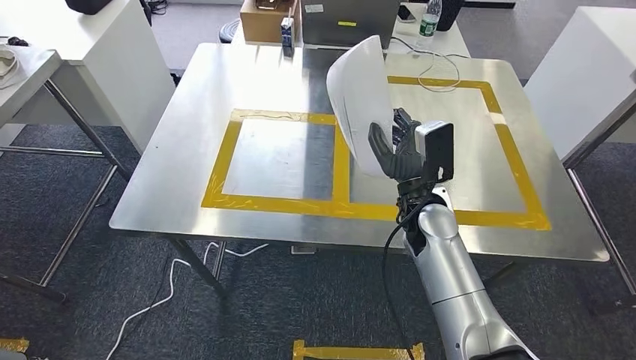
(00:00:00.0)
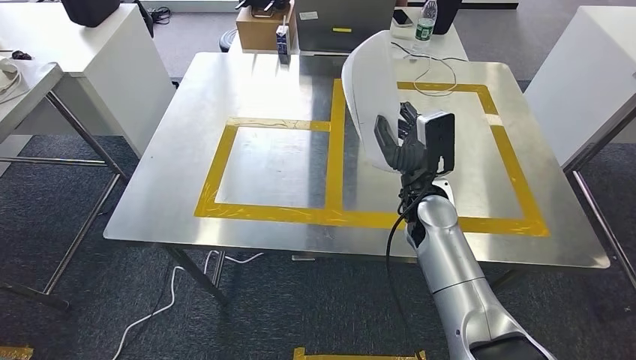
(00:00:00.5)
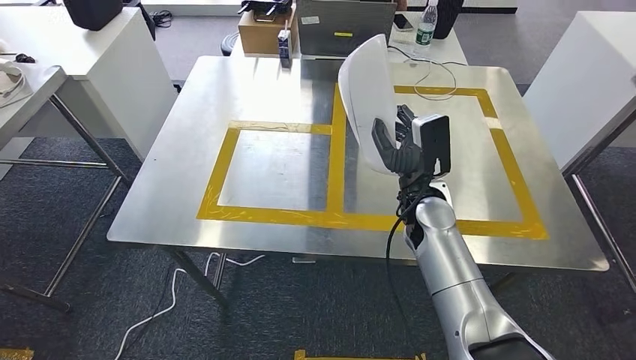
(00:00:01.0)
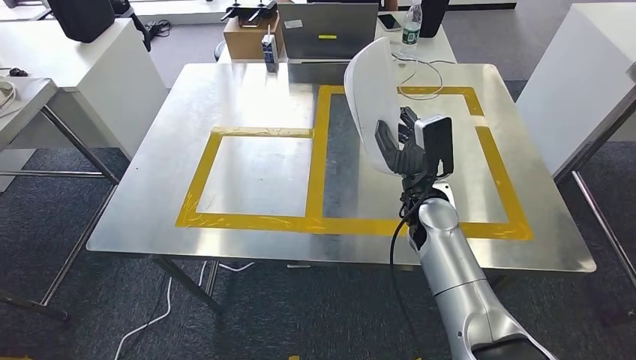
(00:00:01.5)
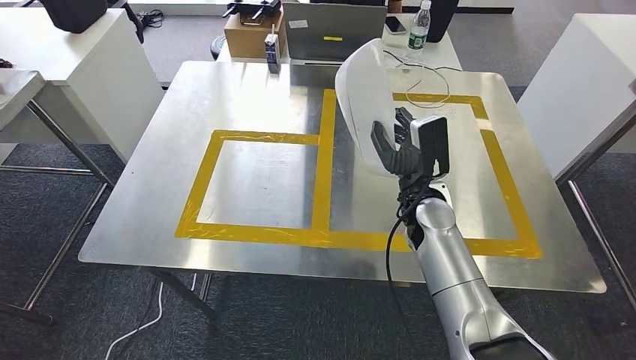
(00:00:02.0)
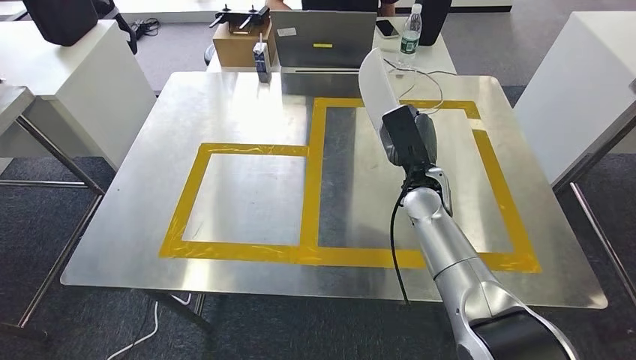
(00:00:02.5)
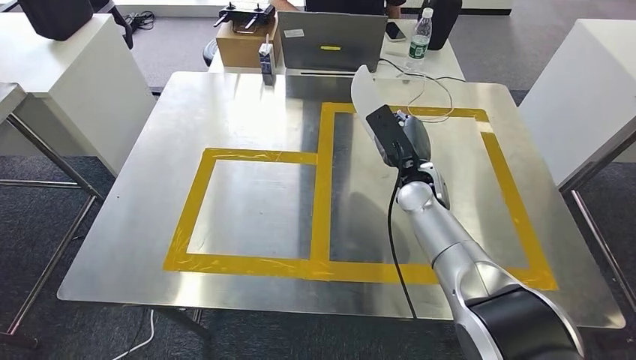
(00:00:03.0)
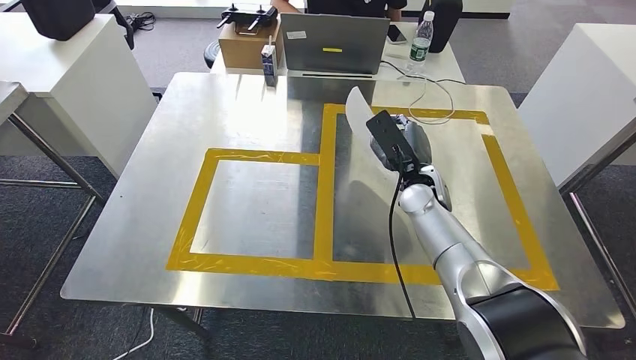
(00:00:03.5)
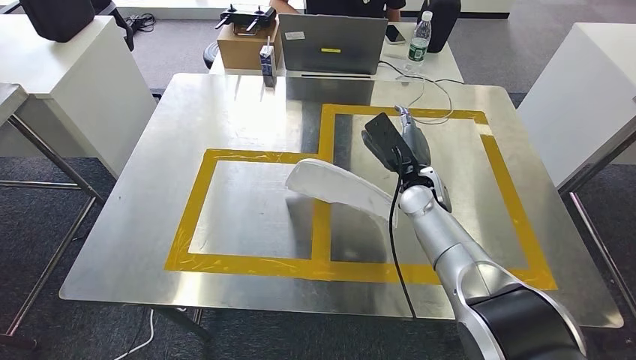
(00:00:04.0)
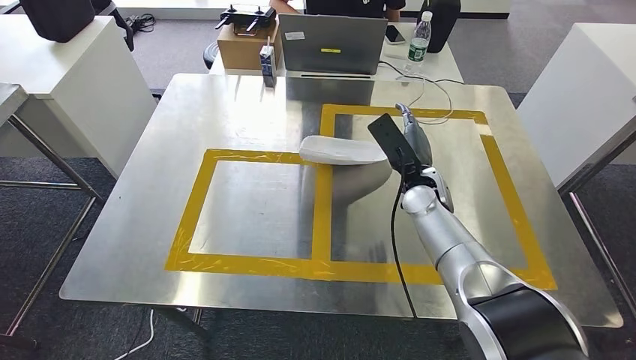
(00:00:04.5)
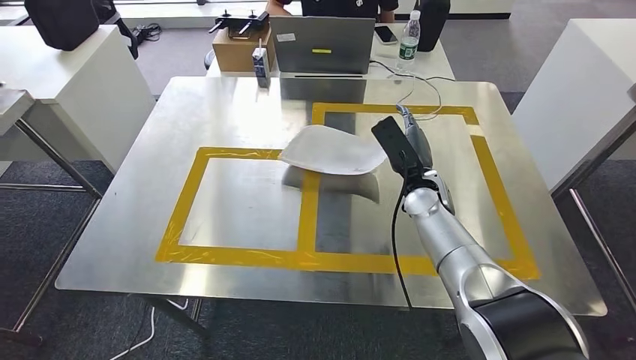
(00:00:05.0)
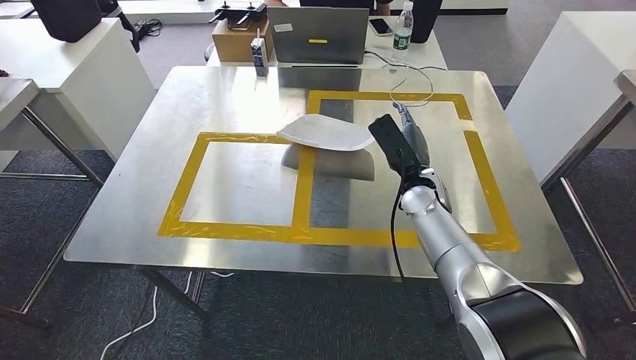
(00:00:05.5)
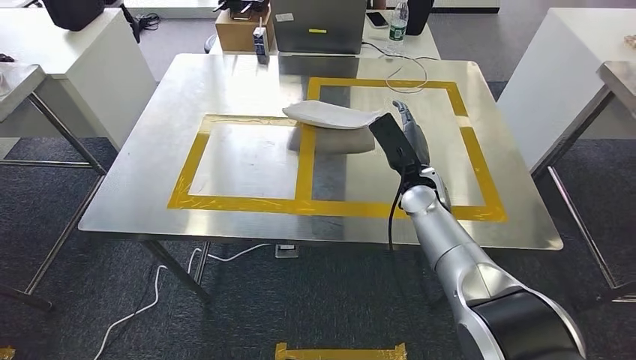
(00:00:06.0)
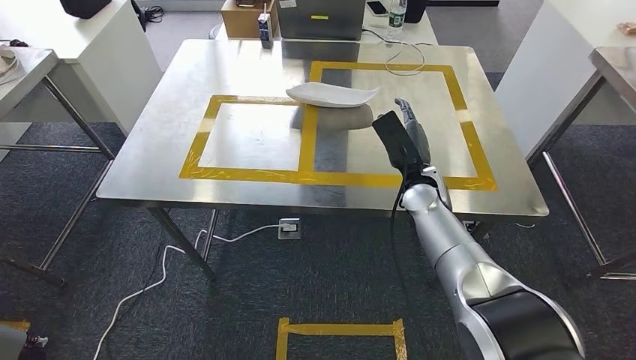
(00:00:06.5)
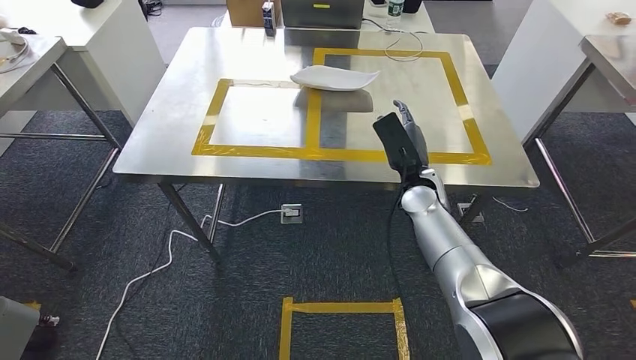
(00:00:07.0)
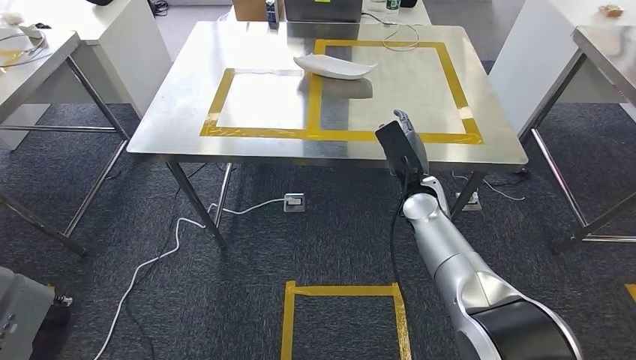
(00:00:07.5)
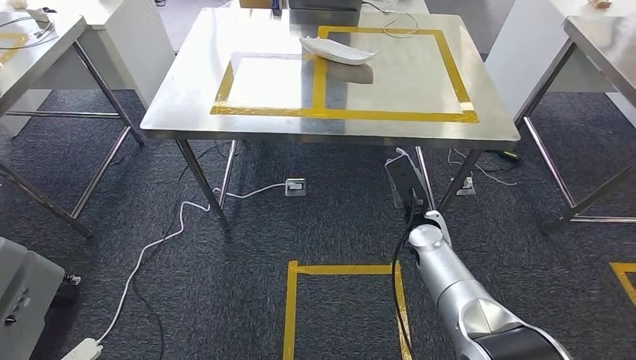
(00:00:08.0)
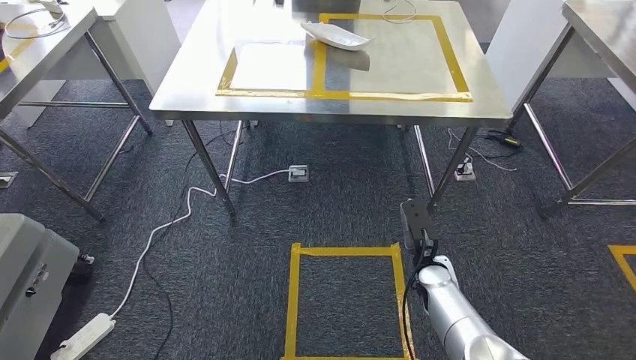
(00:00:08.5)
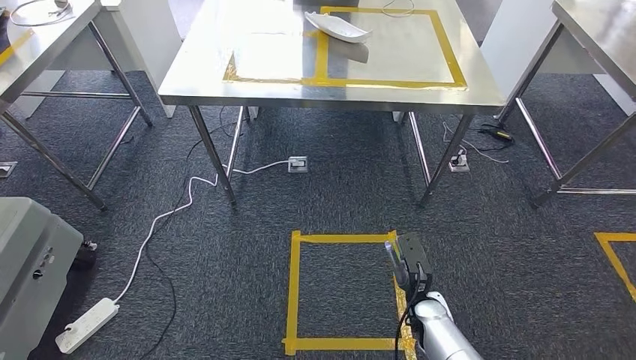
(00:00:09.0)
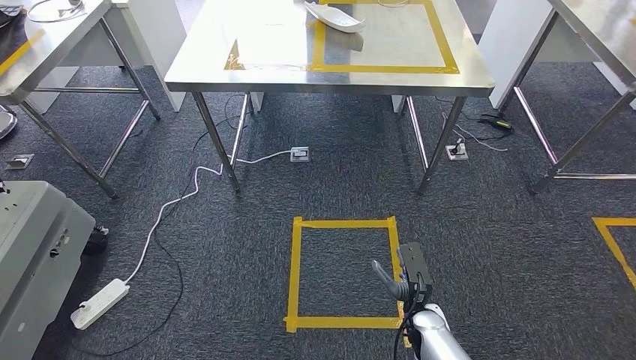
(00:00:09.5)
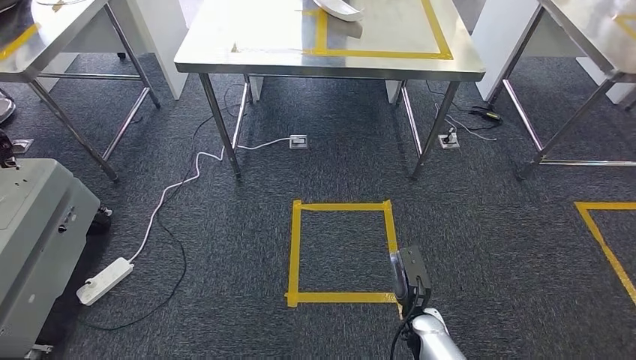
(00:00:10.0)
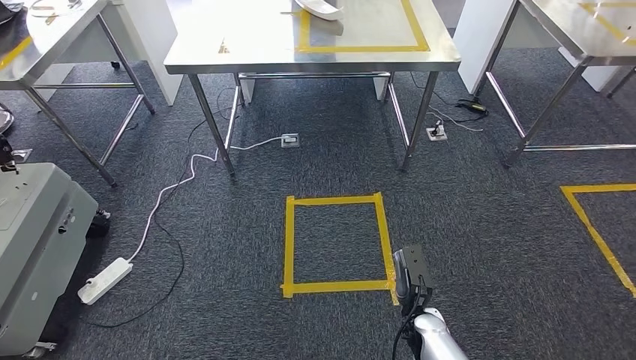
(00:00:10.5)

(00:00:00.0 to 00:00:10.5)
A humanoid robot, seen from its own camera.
Step, 00:00:01.5 - 00:00:05.0: Insert the small parts into the corresponding slots on the workbench.
Step, 00:00:06.0 - 00:00:10.5: Return to the initial position at the workbench.

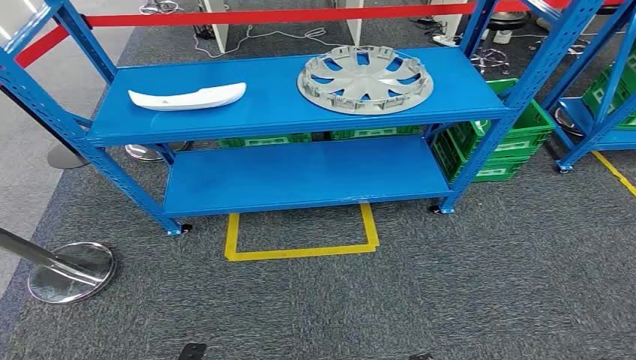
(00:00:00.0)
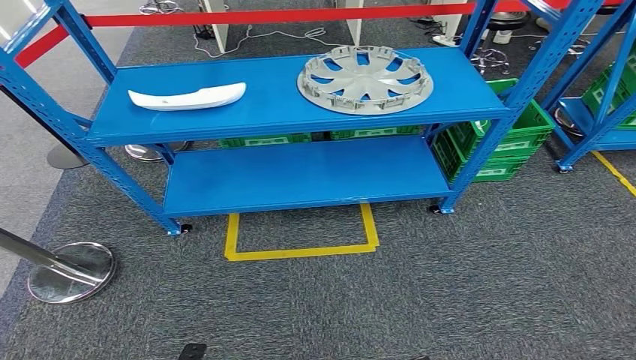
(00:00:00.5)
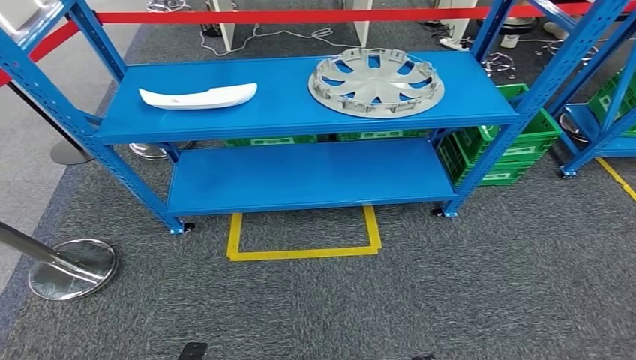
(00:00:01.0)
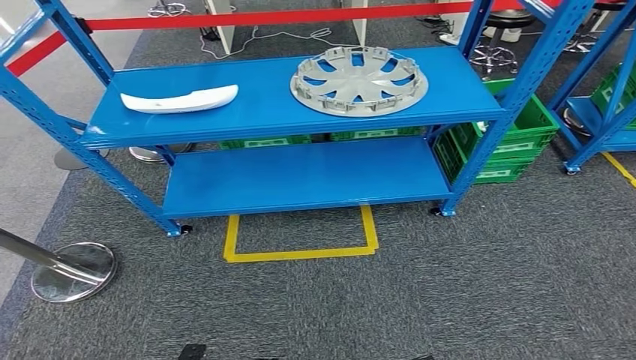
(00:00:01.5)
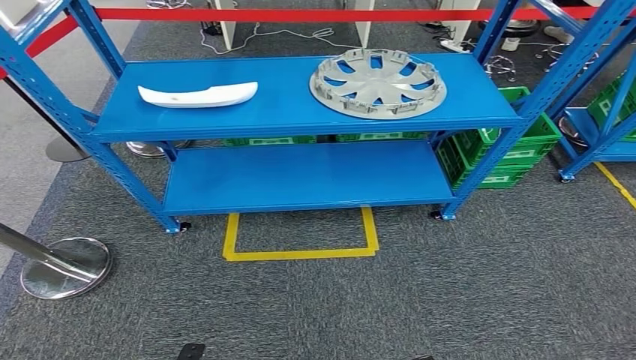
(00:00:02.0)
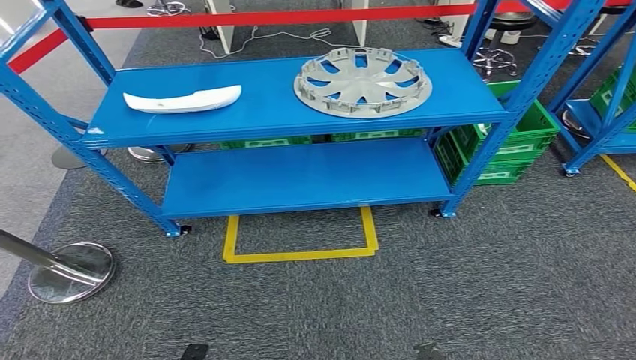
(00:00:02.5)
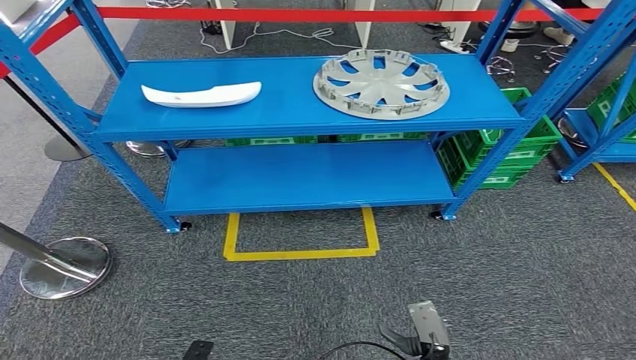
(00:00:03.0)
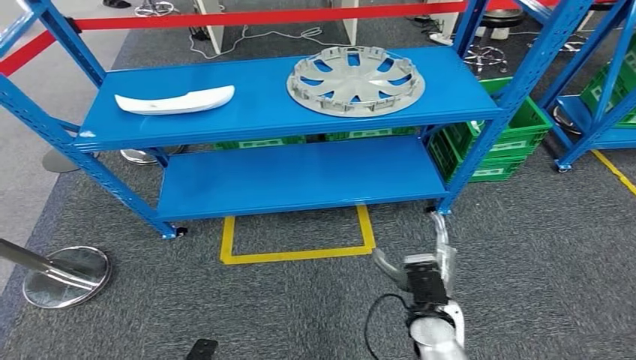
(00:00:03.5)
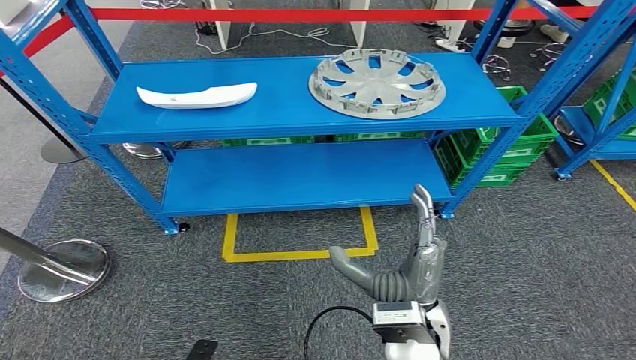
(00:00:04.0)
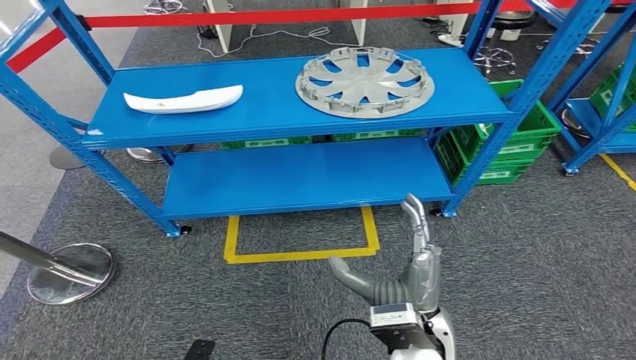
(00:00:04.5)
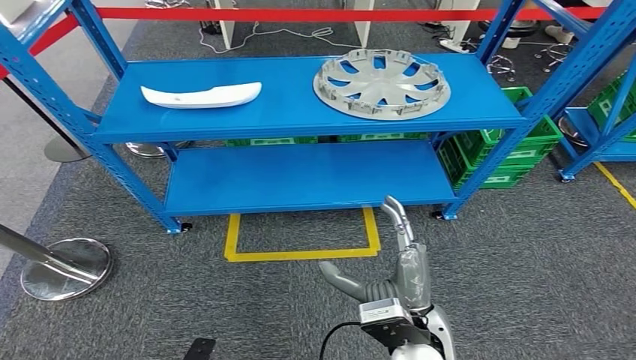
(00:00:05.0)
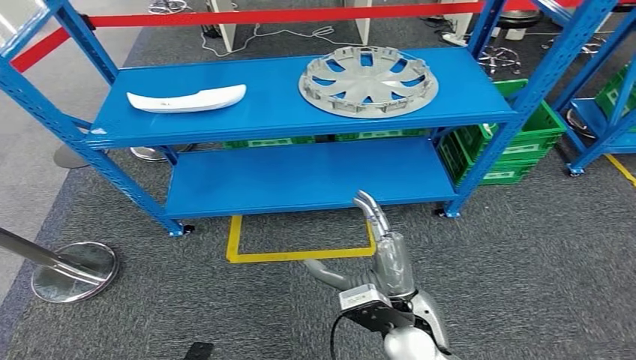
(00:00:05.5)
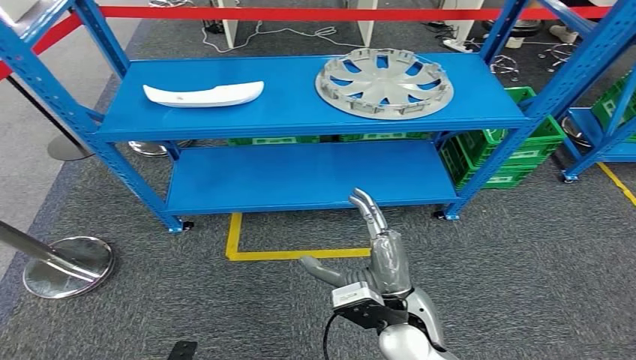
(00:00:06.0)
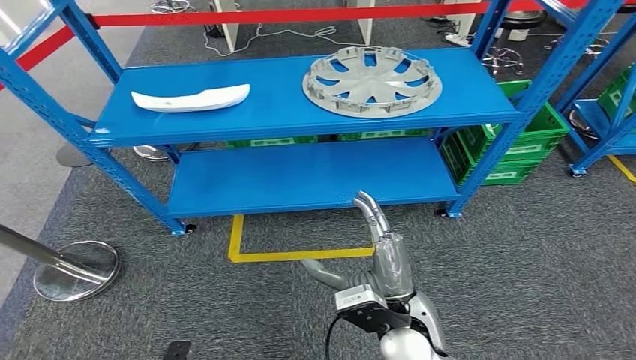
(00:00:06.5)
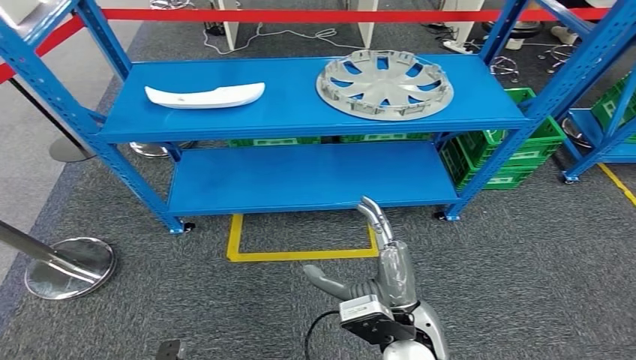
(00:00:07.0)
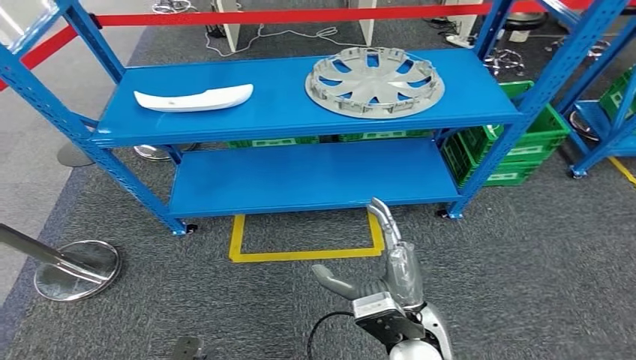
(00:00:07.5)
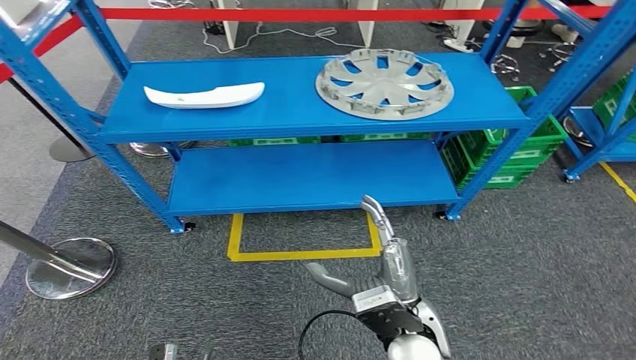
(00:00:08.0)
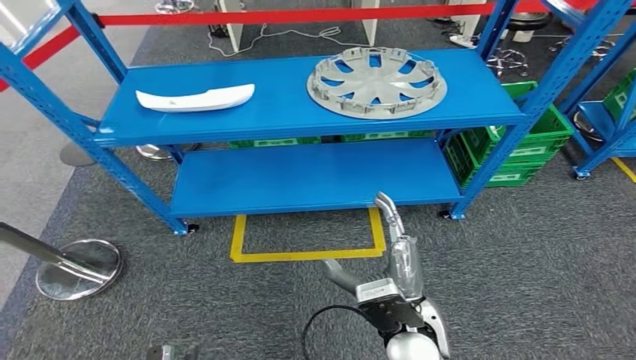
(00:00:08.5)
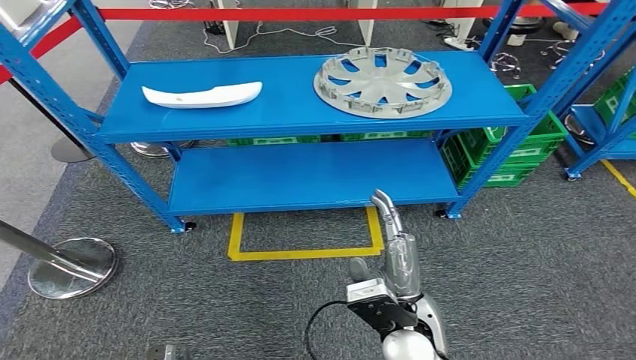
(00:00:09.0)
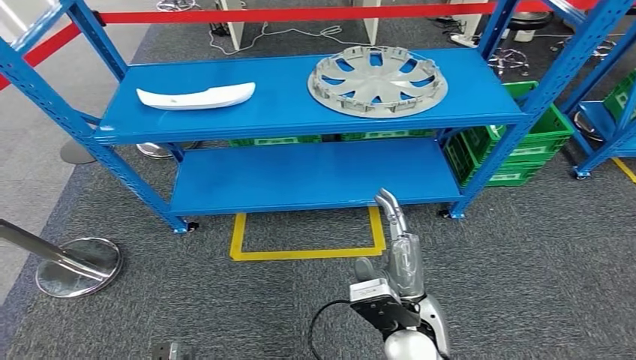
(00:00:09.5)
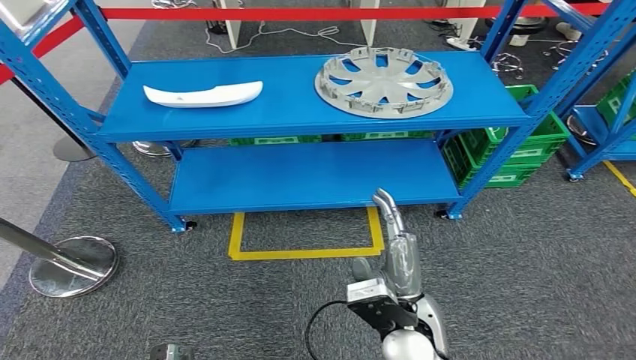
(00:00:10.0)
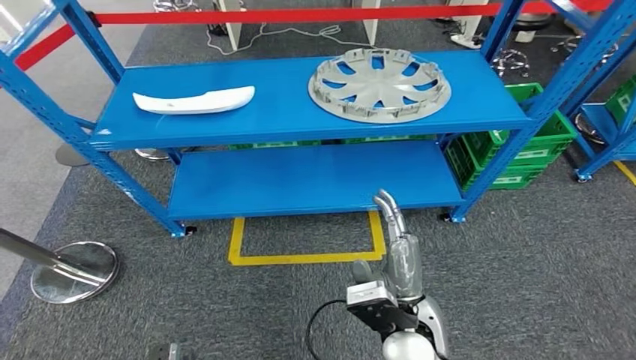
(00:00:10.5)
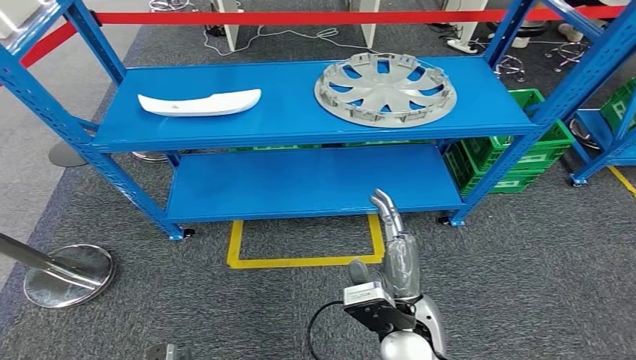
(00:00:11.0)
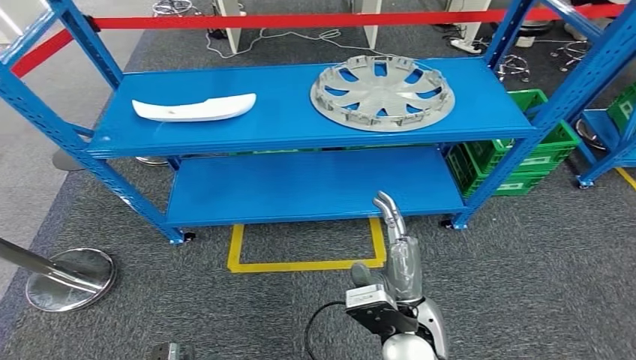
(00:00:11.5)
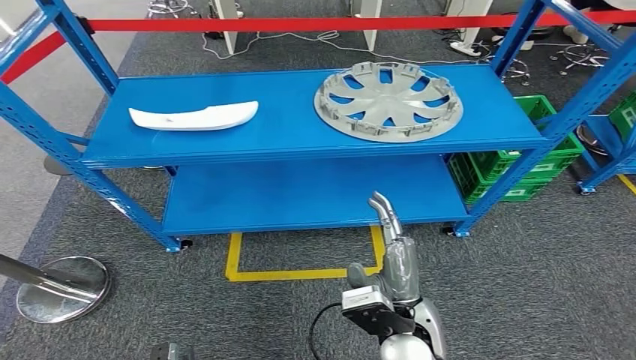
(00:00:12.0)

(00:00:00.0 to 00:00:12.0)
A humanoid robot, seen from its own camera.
00:00:02.0 - 00:00:04.0: The right hand moves upward, forward and to the left, about 30 cm.
00:00:04.0 - 00:00:06.0: The hands make only small movements.
00:00:08.0 - 00:00:10.0: There are only small adjustments of the hands.
